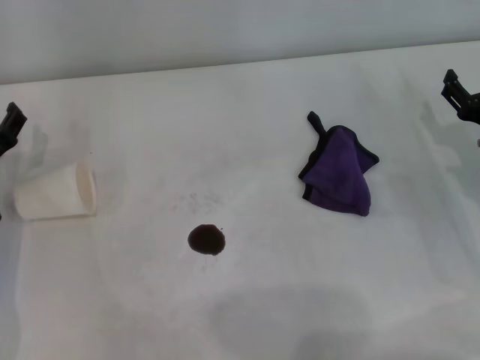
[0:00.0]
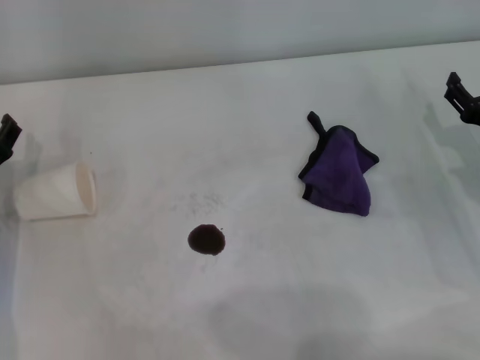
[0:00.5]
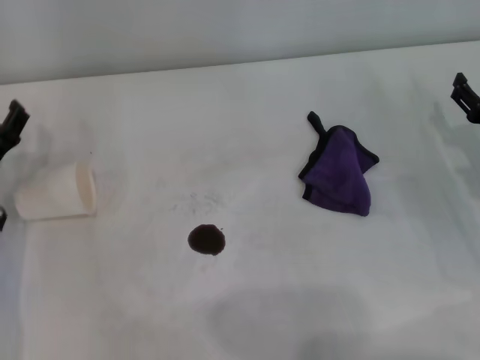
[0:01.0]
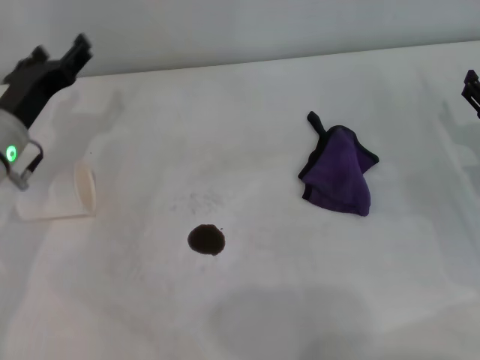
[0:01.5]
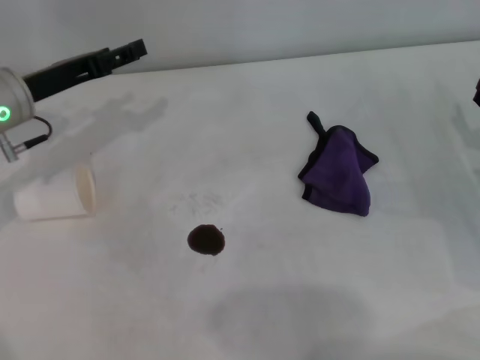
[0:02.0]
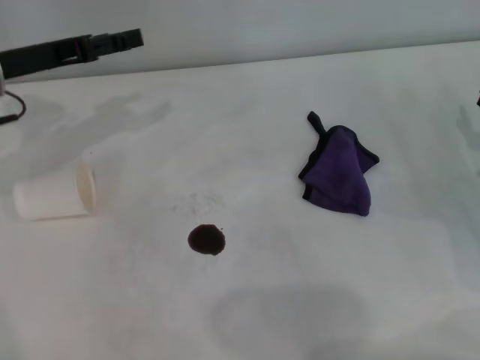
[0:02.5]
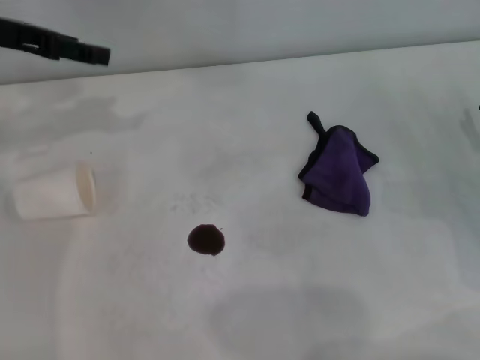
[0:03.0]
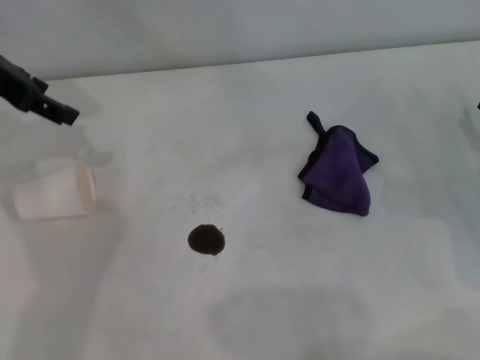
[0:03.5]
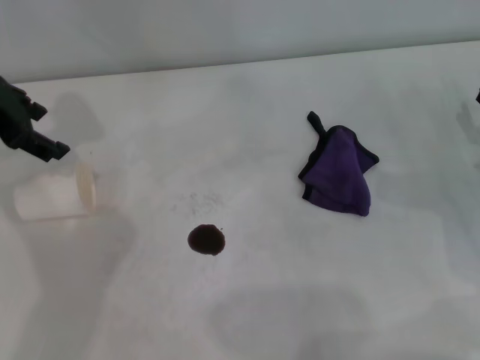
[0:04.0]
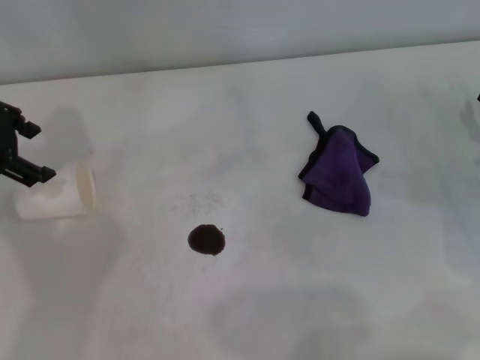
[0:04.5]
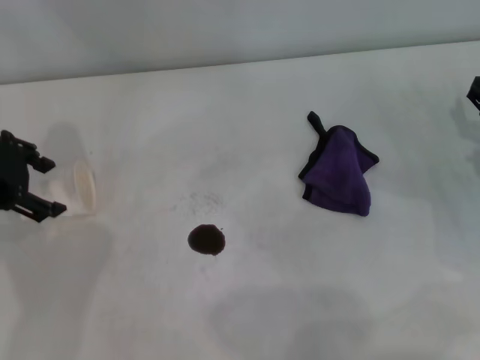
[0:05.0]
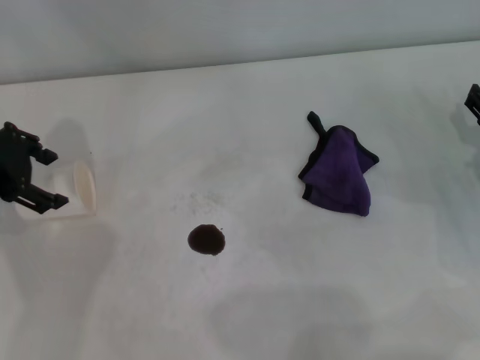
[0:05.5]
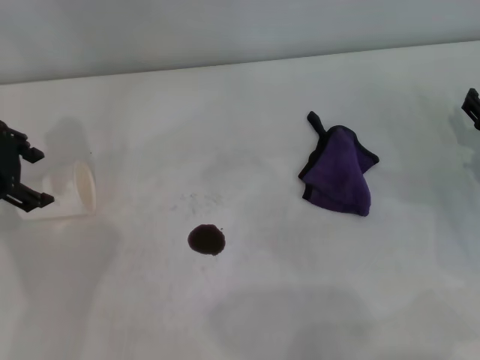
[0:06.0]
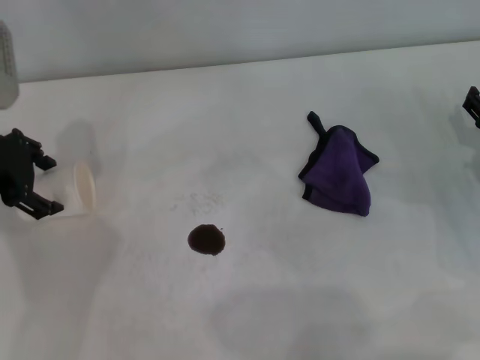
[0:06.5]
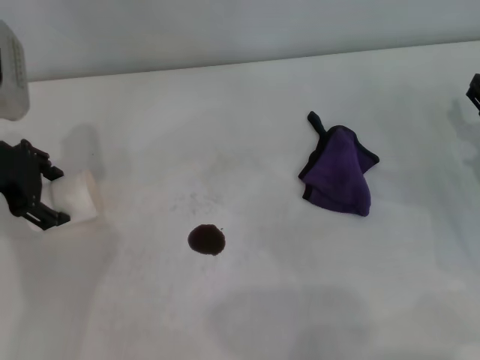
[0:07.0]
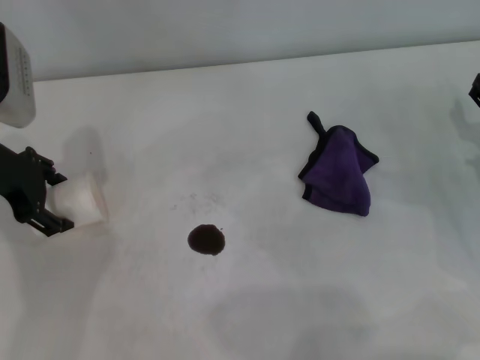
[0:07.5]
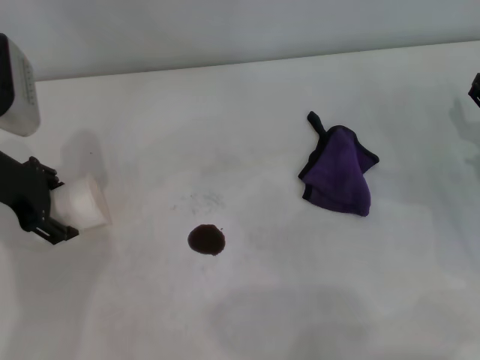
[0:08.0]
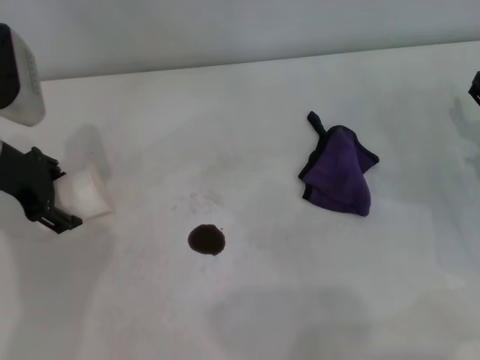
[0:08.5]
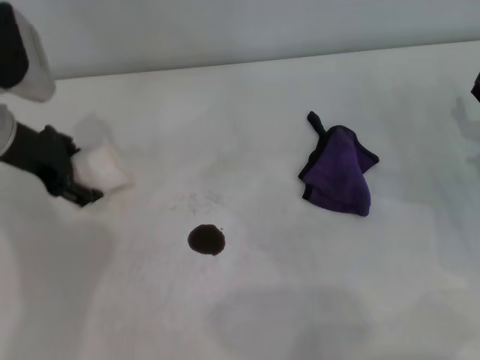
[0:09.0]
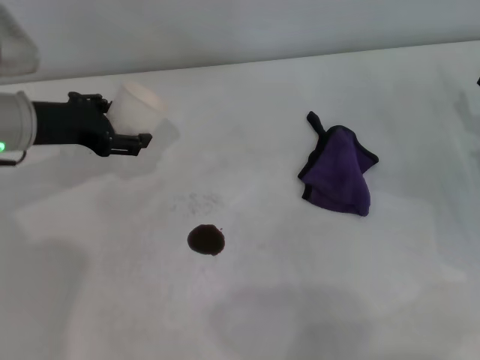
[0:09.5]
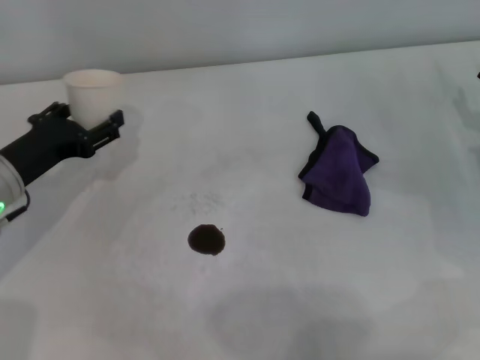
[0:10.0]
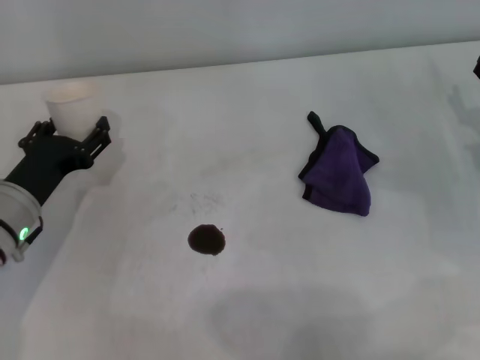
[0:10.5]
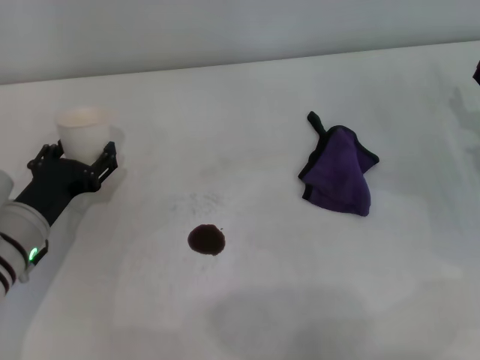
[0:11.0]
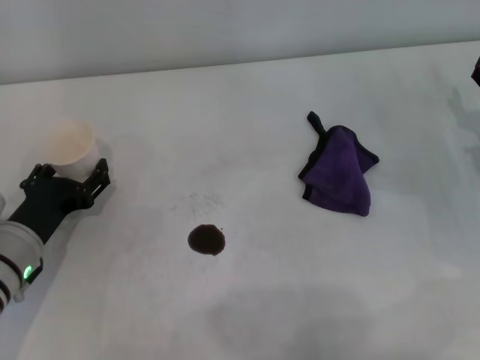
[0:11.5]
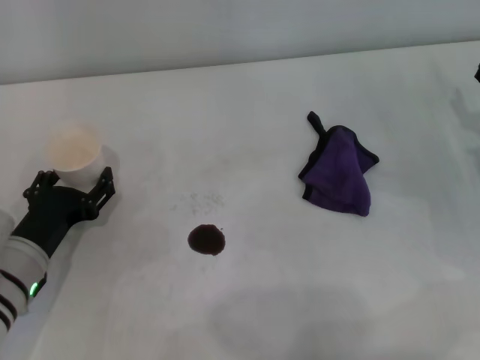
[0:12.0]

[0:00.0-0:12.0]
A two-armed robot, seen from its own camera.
Step, 0:00.0 to 0:08.5: Grasp the paper cup with the left gripper.
0:00.0 to 0:02.0: The left gripper travels upward and forward by about 10 cm.
0:02.0 to 0:04.0: The left gripper travels upward by approximately 10 cm.
0:04.0 to 0:06.0: The grippers move only a little.
0:06.0 to 0:08.0: The grippers make only small movements.
0:08.0 to 0:10.0: The left gripper heads downward, covering roughly 10 cm.
0:10.0 to 0:12.0: The left gripper goes some 10 cm backward and downward.

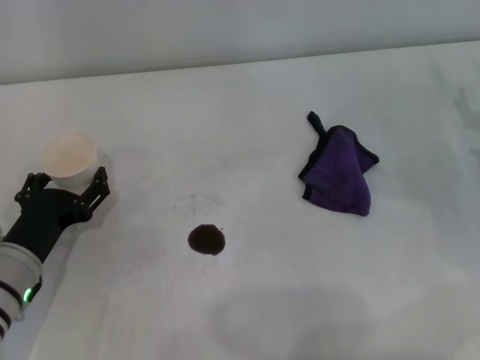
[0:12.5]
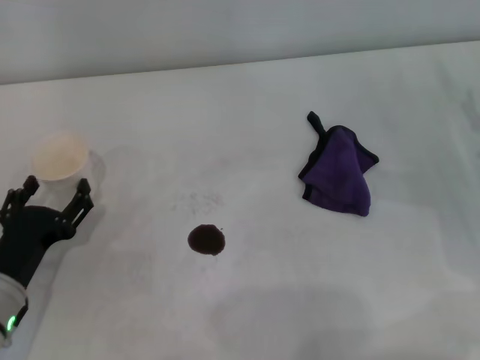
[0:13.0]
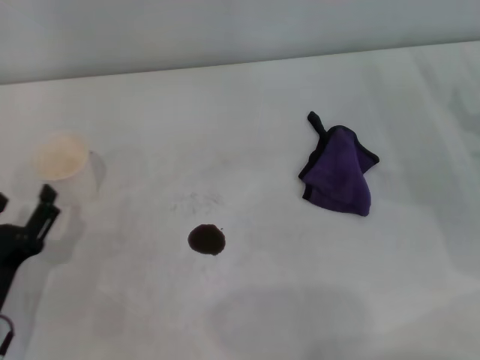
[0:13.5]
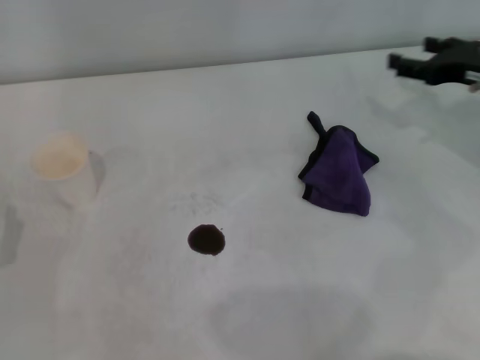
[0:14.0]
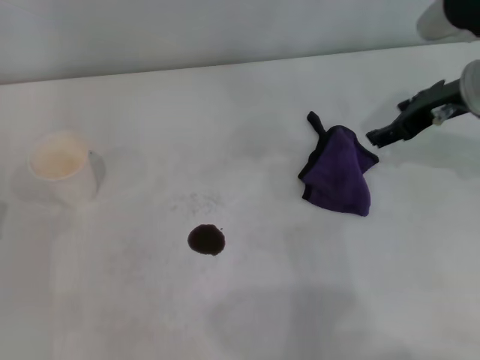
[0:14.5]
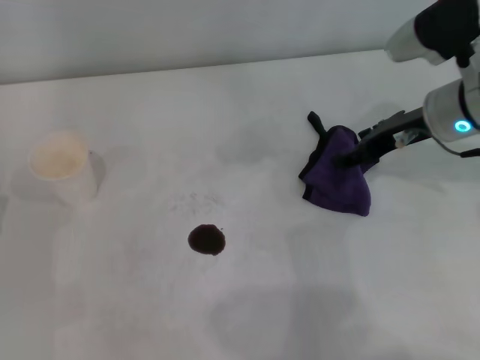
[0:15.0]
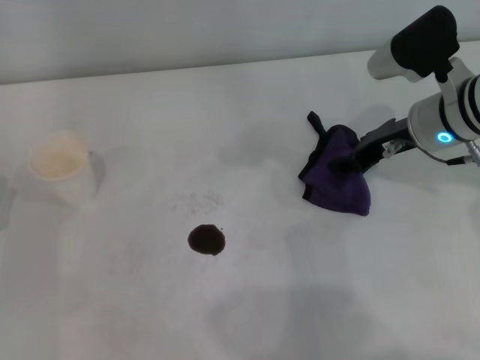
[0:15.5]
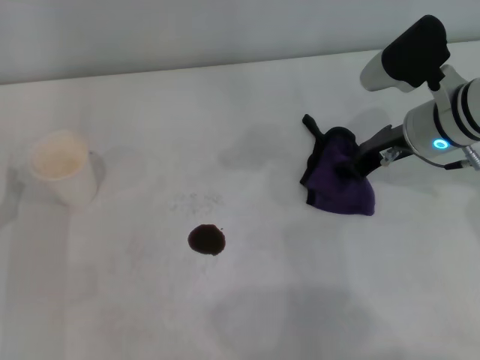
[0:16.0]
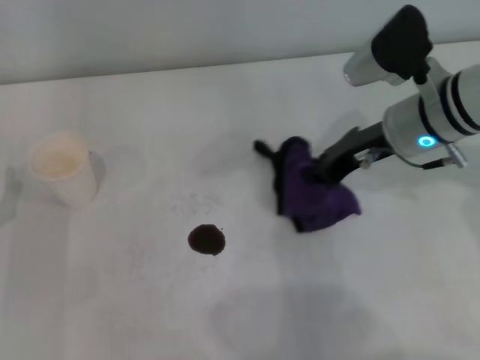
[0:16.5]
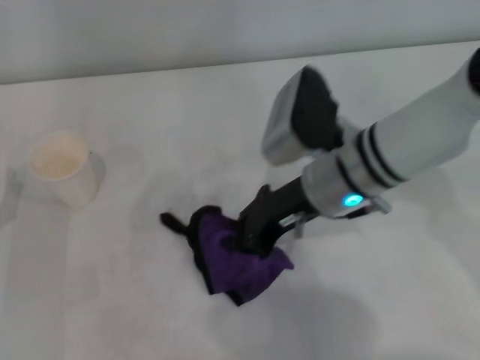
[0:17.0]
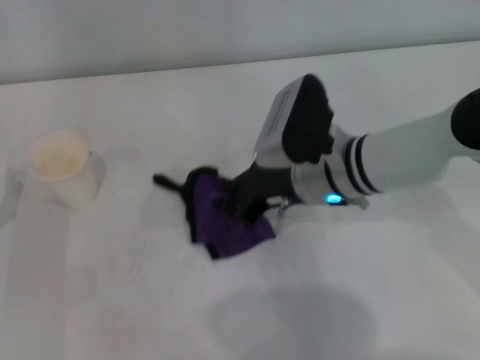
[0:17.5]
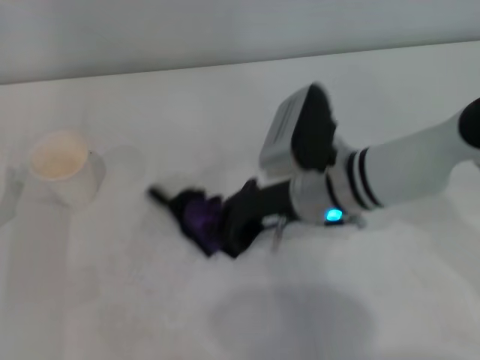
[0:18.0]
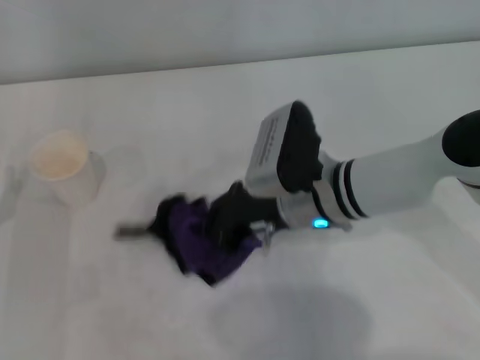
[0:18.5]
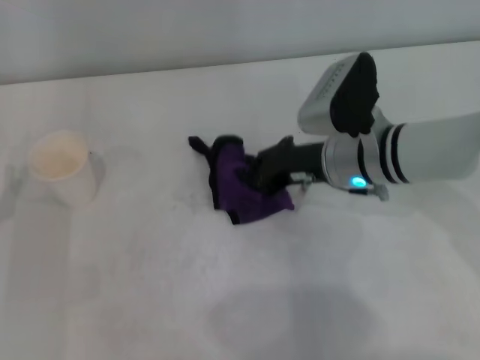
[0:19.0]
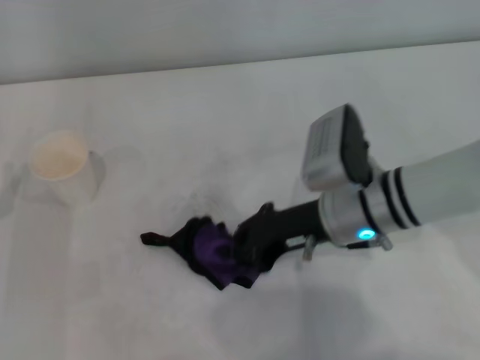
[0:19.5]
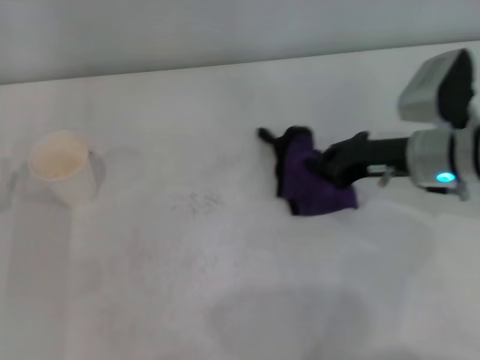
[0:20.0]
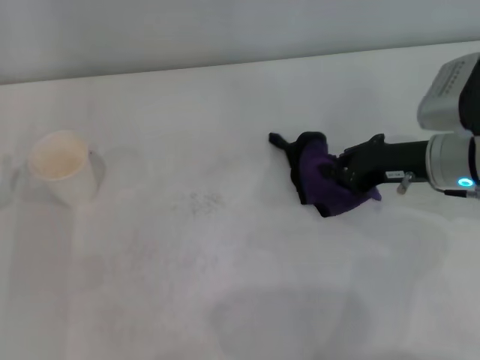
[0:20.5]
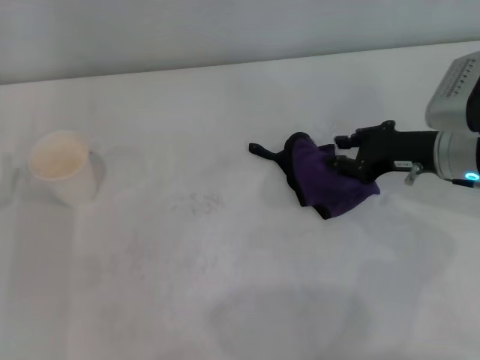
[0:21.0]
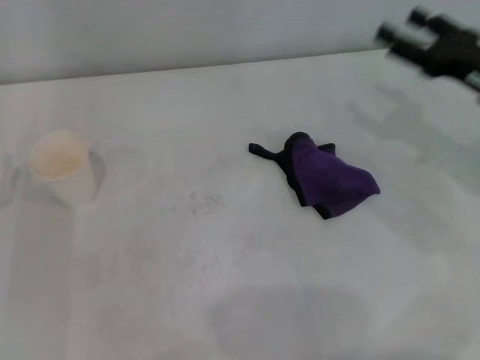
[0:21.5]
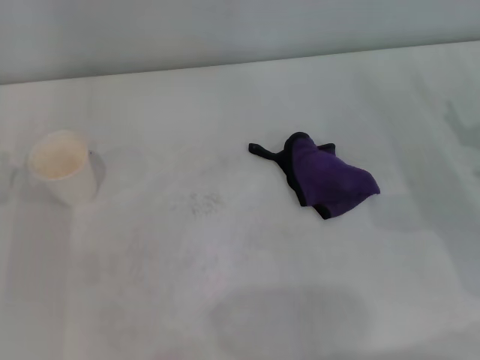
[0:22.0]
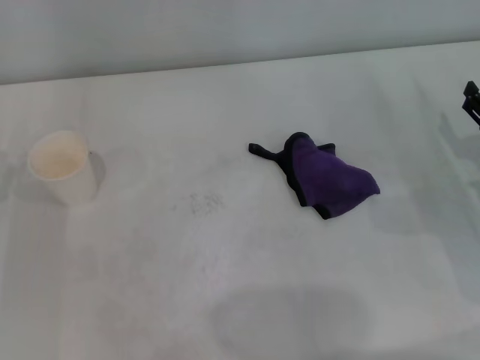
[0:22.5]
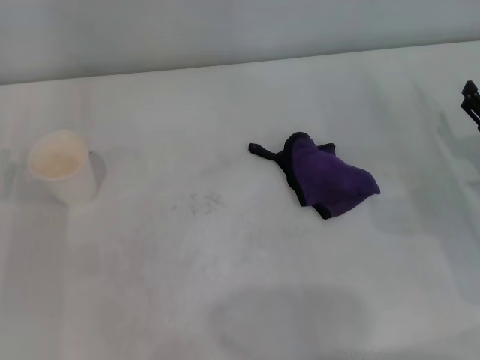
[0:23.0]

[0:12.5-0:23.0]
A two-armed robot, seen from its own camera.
Step, 0:13.0 to 0:16.0: Grasp the rag with the right gripper.
Step, 0:16.5 to 0:20.0: Wipe the stains off the table with the right gripper.
0:12.5 to 0:14.5: The right gripper moves upward, to the left and forward, roughly 15 cm, while the left gripper is displaced to the left and backward by approximately 10 cm.
0:14.5 to 0:16.5: The right gripper travels to the left by some 5 cm, and closes up.
0:16.5 to 0:19.0: The right gripper shifts some 5 cm downward.
0:19.0 to 0:21.0: The right gripper goes roughly 10 cm to the right.
0:21.0 to 0:23.0: The right gripper travels to the right and backward by approximately 10 cm, and opens its fingers.

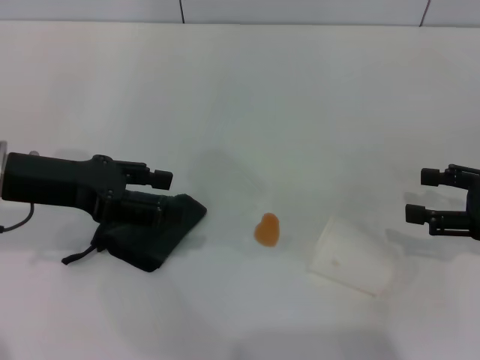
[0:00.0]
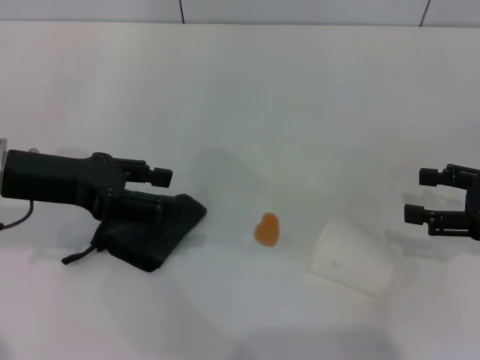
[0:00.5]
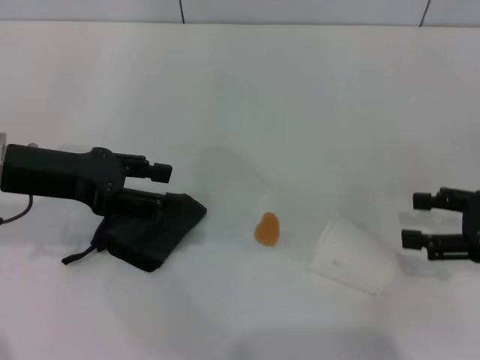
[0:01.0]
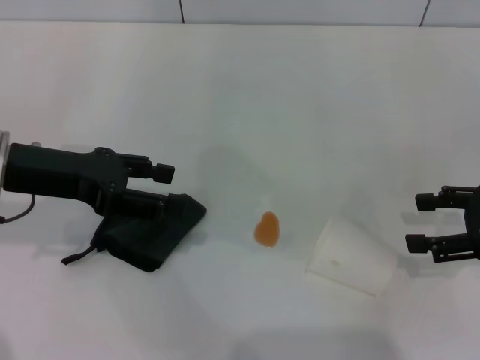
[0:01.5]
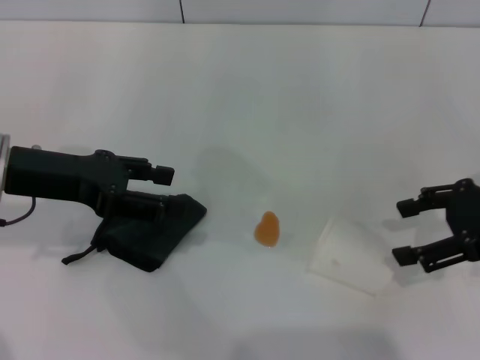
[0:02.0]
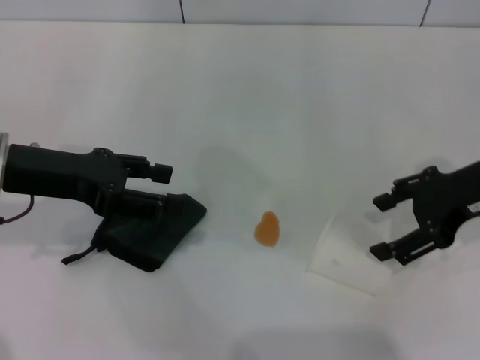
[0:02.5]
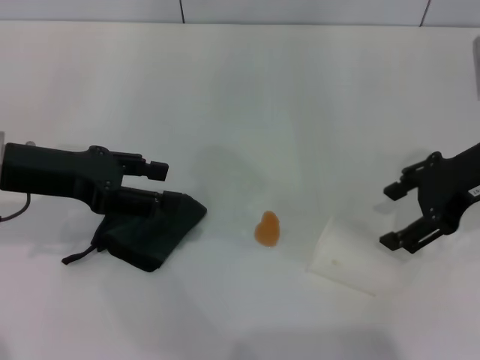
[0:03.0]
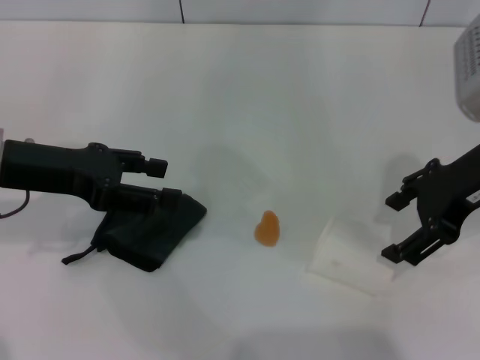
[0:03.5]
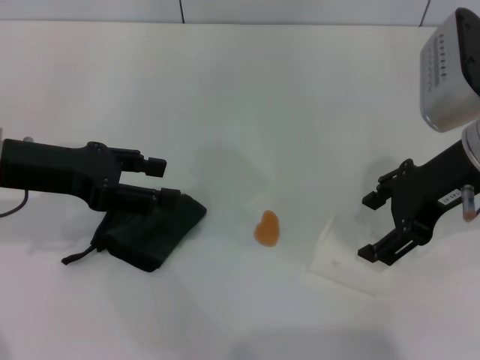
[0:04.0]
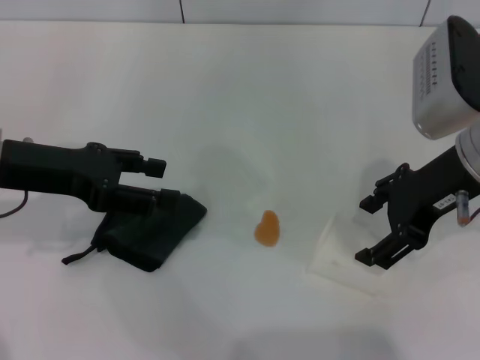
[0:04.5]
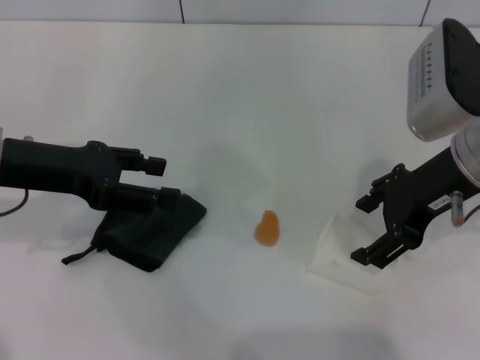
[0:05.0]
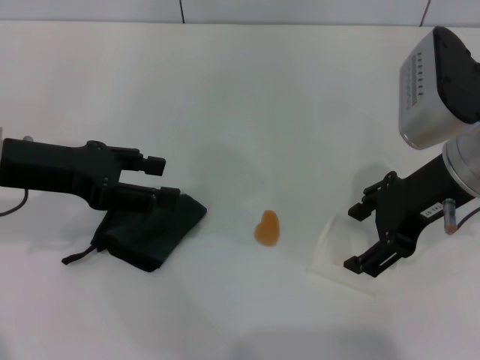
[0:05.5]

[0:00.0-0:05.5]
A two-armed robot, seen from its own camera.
0:00.0 to 0:02.0: The right gripper moves about 5 cm.
0:02.0 to 0:03.5: The right gripper shifts roughly 10 cm to the left and upward.
0:03.5 to 0:05.5: The grippers stay close to where they were, moving slightly.
